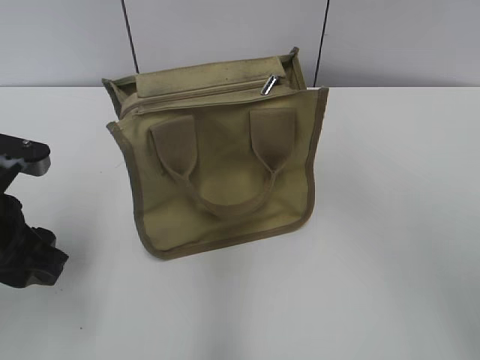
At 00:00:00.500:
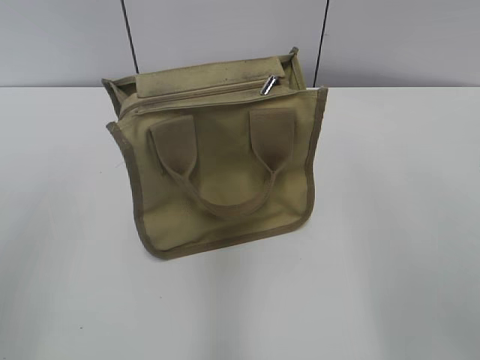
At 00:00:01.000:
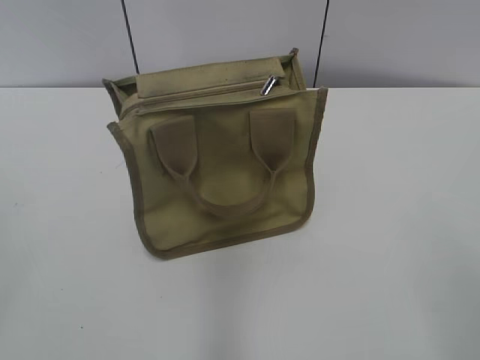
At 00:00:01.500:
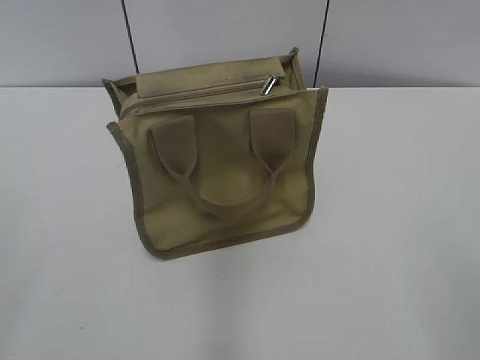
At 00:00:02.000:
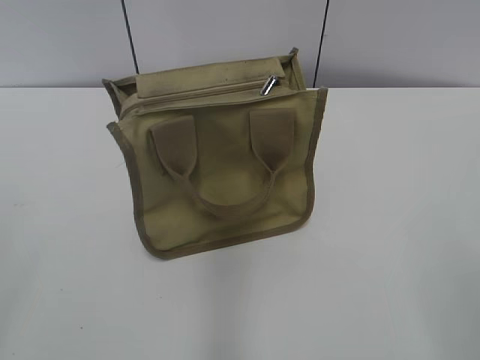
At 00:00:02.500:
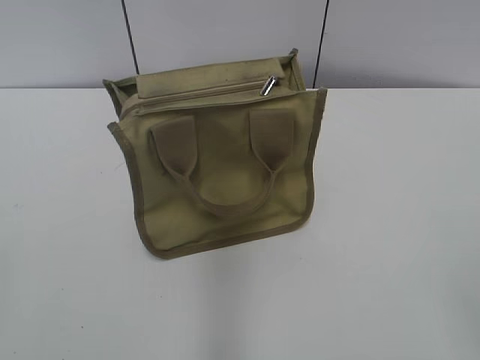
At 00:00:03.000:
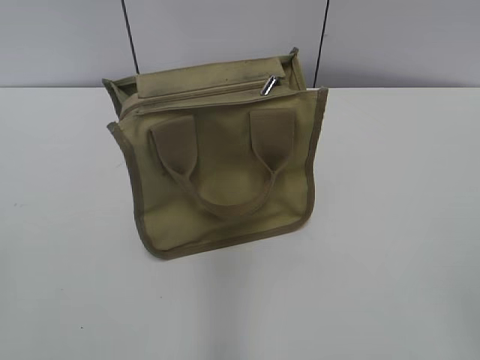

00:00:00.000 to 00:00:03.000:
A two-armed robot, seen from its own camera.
00:00:00.000 to 00:00:01.500: The left gripper heads backward, upward and to the left, covering some 20 cm.
